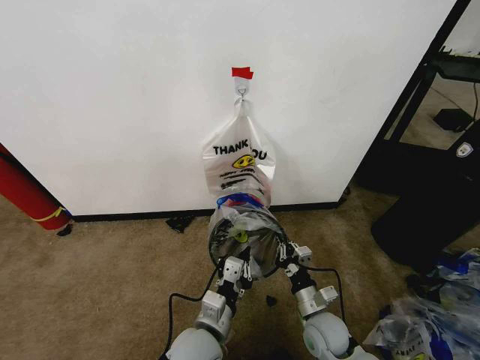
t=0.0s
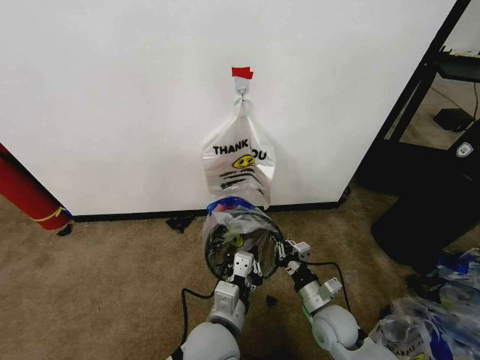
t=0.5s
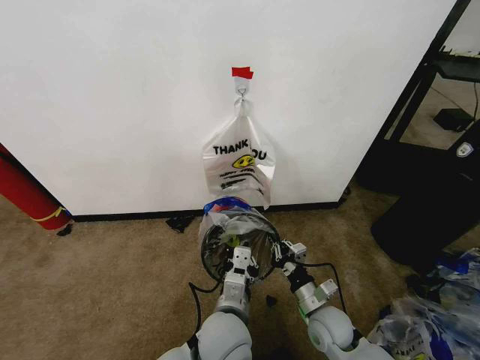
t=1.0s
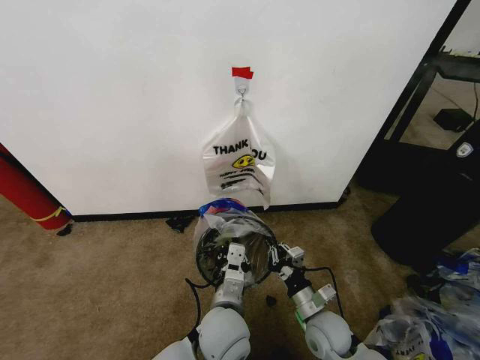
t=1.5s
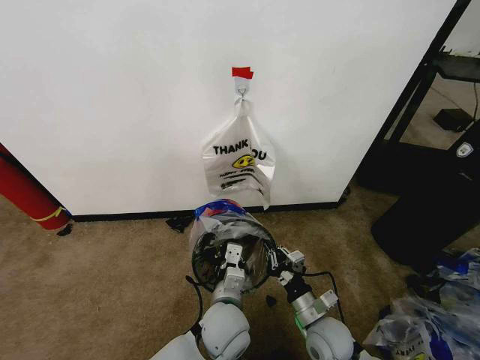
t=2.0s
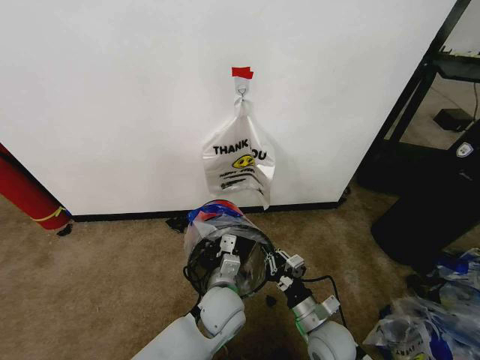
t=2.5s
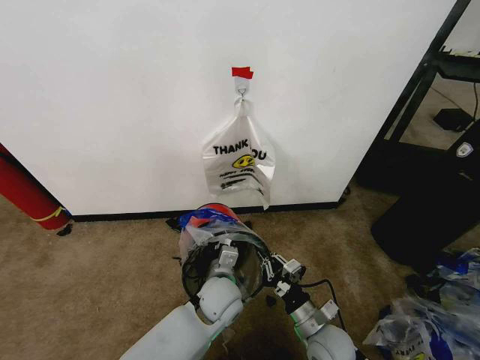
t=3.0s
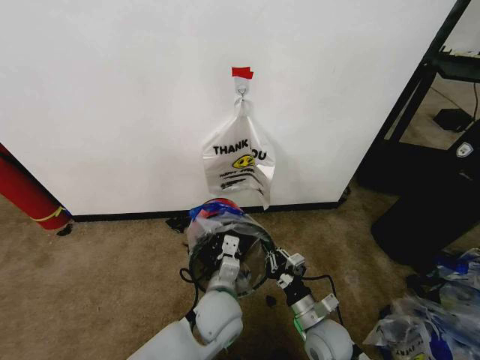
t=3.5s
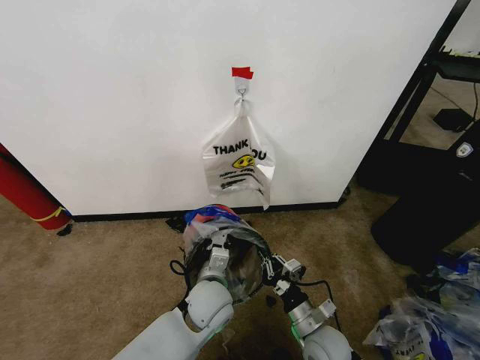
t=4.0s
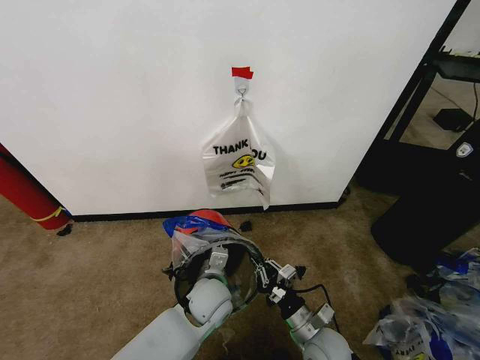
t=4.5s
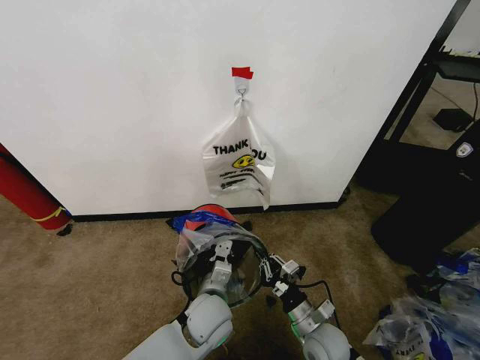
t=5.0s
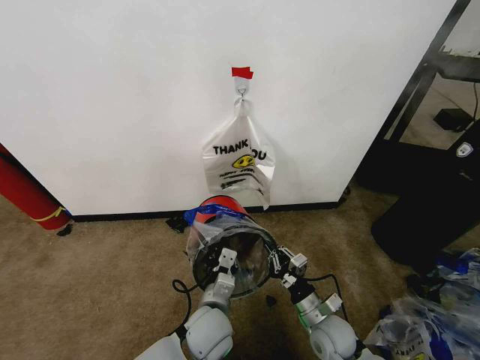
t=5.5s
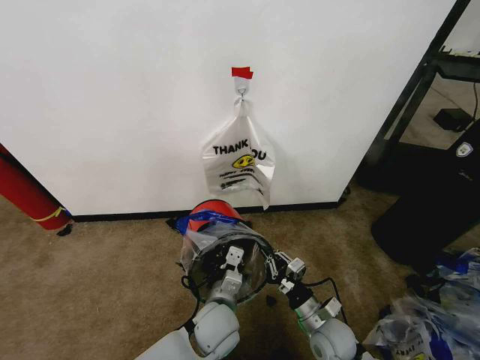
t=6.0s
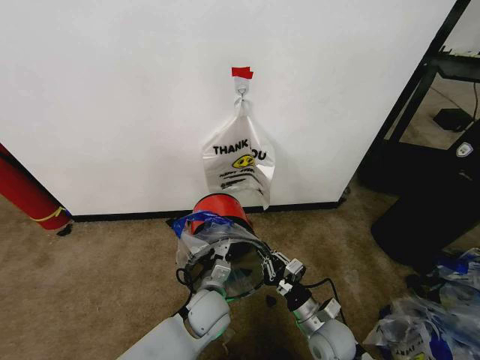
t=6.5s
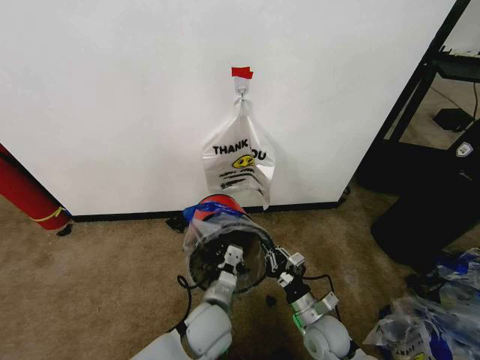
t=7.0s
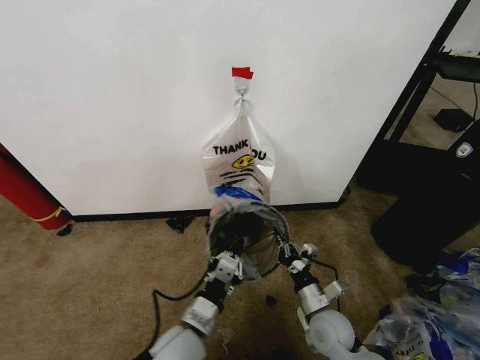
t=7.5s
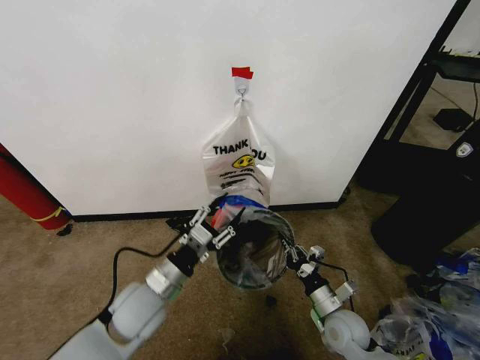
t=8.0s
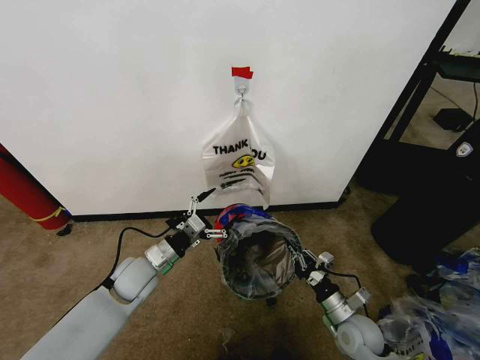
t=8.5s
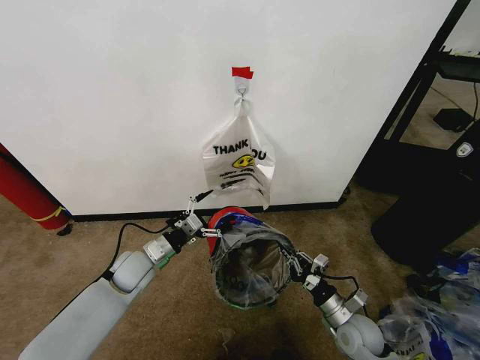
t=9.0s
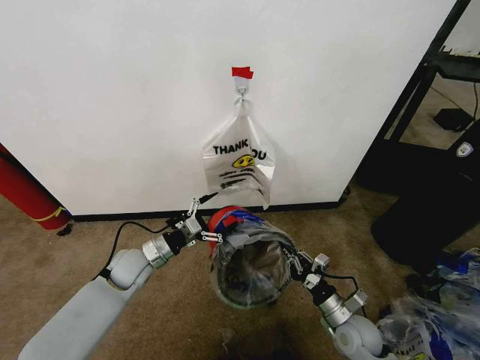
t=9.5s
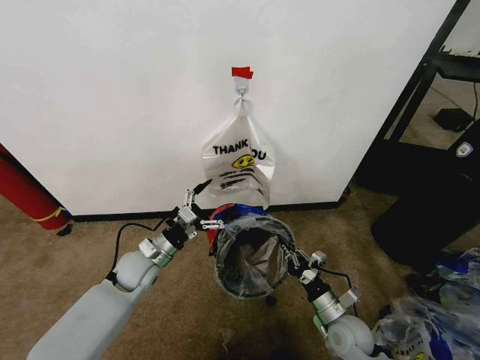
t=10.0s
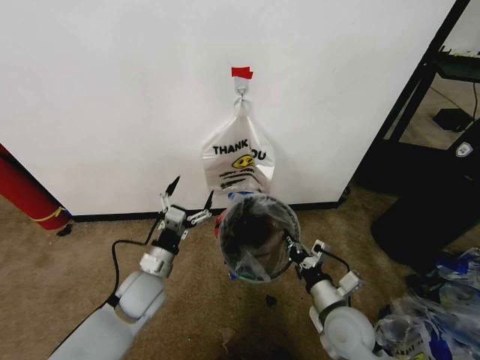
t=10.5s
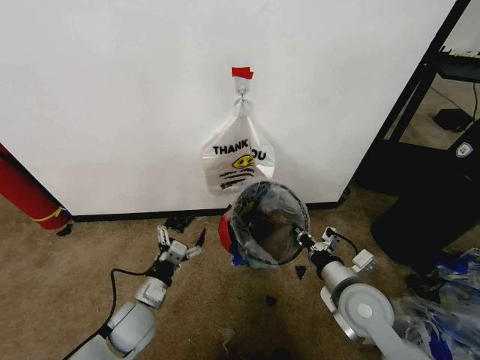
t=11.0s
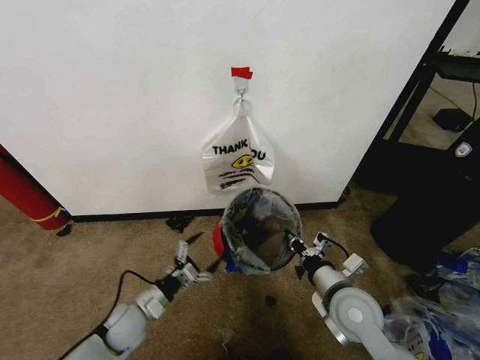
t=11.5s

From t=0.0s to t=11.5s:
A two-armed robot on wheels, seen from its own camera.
Task of the whole recording: Pick up the garbage bag from the wall and place it over the trash bin.
From t=0.0s to t=2.0s: The left gripper heads to the right, covering roughly 5 cm.
From t=2.0s to t=4.0s: The left gripper ends up roughly 5 cm from where it was.
From t=4.0s to t=6.0s: The left gripper ends up some 5 cm from where it was.
From t=6.0s to t=7.5s: The left gripper is displaced backward by some 5 cm.
From t=7.5s to t=9.5s: The left gripper travels forward and to the left by roughly 25 cm, and opens up. Meanwhile the right gripper travels to the right by roughly 5 cm.
From t=9.5s to t=11.5s: The right gripper heads upward, covering approximately 15 cm; the left gripper is displaced backward and downward by about 15 cm.

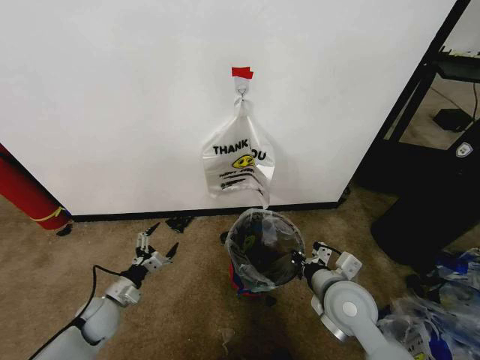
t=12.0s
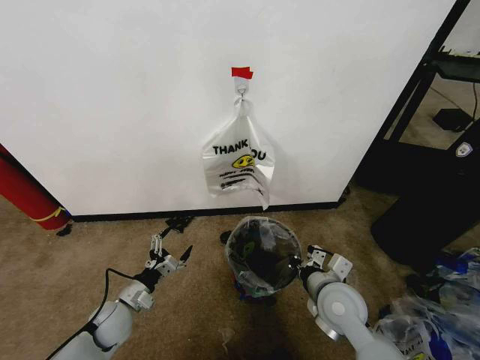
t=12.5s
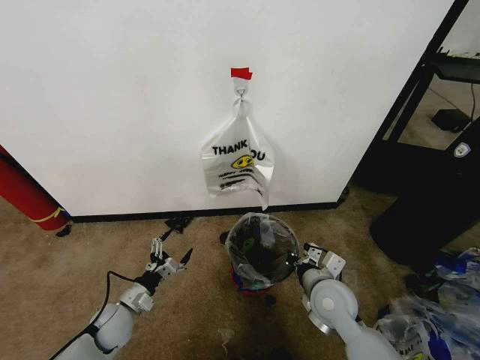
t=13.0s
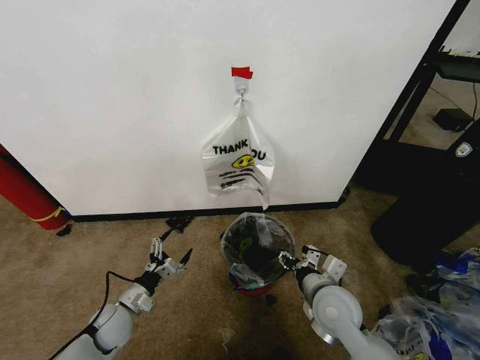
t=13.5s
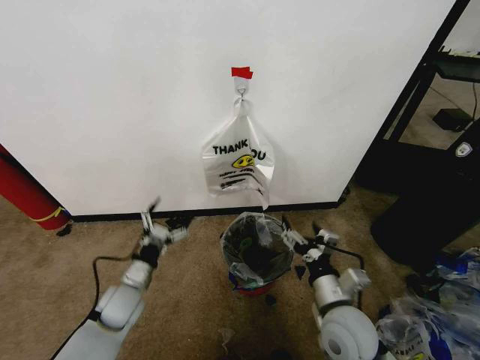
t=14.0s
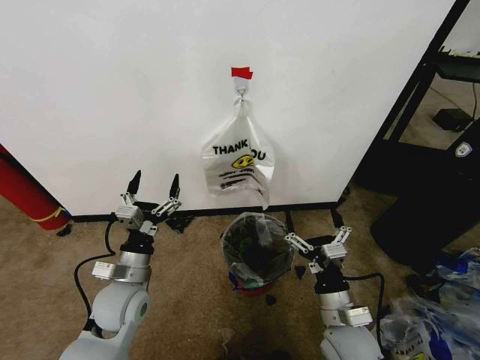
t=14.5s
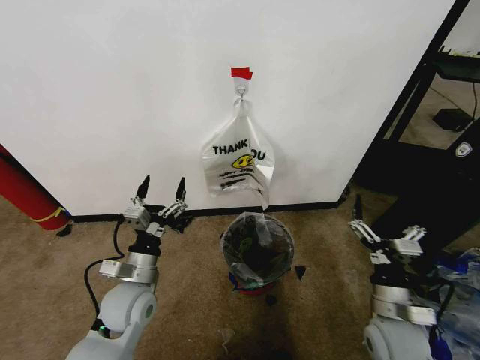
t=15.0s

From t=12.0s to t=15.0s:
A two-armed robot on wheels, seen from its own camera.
Task of the whole recording: Pick up the garbage bag from the wall and place it over the trash bin.
From t=12.0s to t=13.5s: The right gripper opens.
From t=13.5s to t=15.0s: The right gripper goes roughly 10 cm to the right and backward, and opens up, while the left gripper shifts roughly 15 cm upward and to the right.

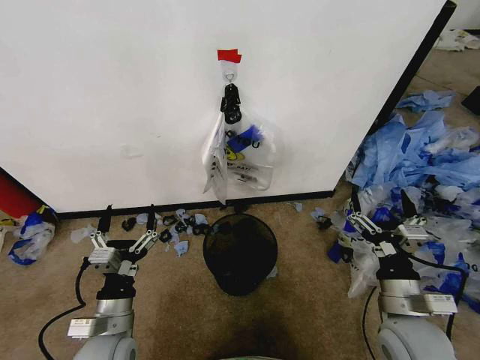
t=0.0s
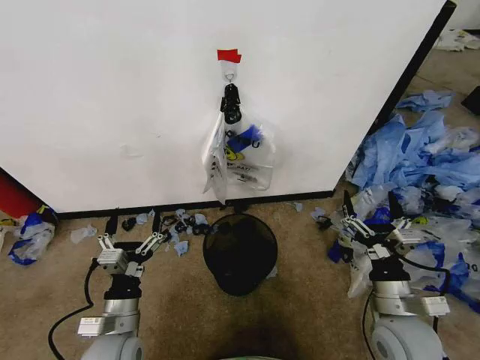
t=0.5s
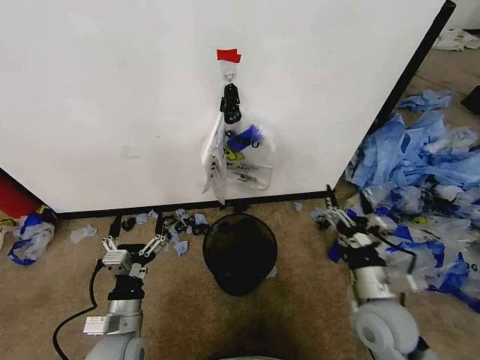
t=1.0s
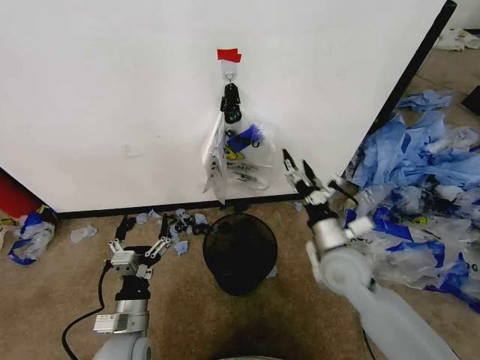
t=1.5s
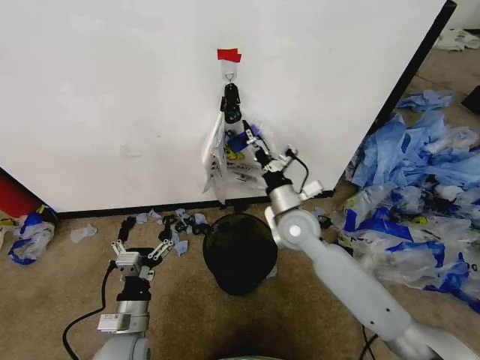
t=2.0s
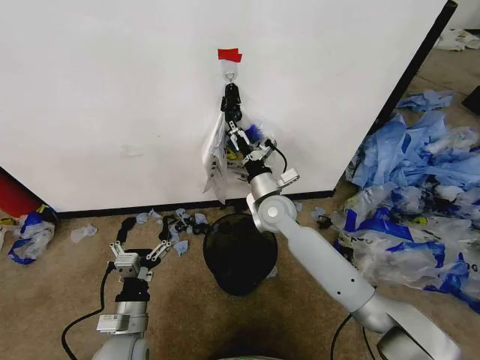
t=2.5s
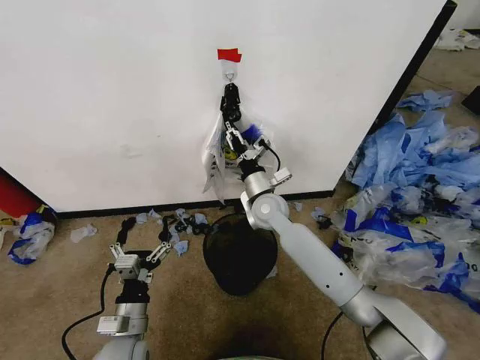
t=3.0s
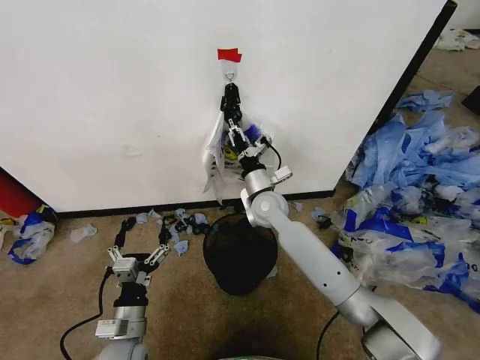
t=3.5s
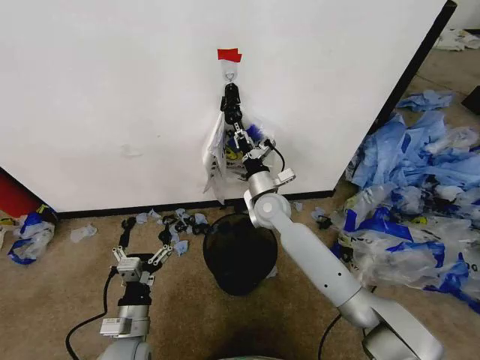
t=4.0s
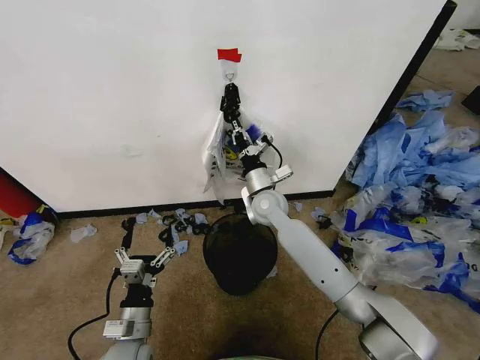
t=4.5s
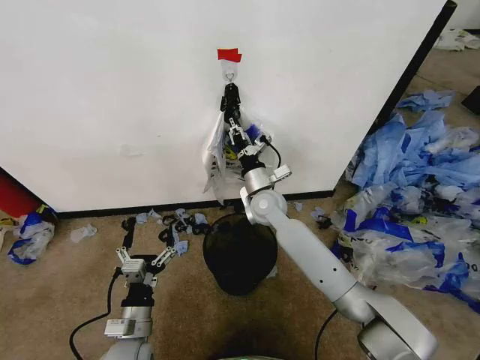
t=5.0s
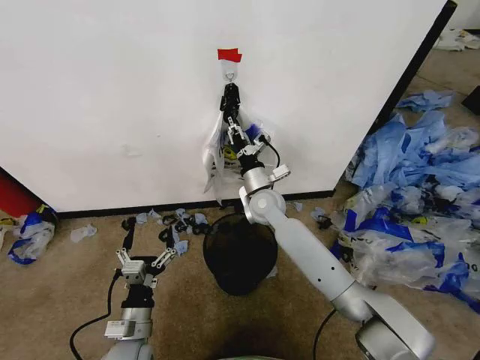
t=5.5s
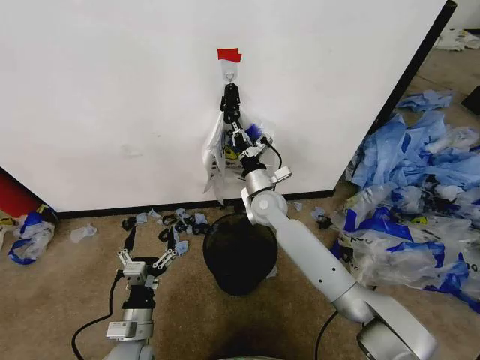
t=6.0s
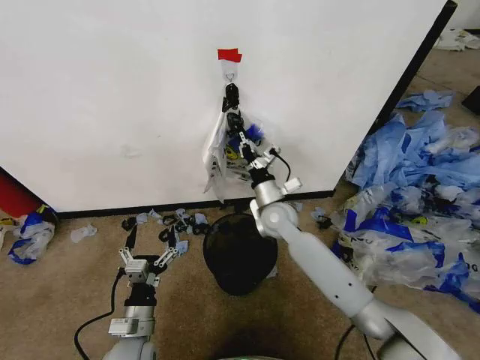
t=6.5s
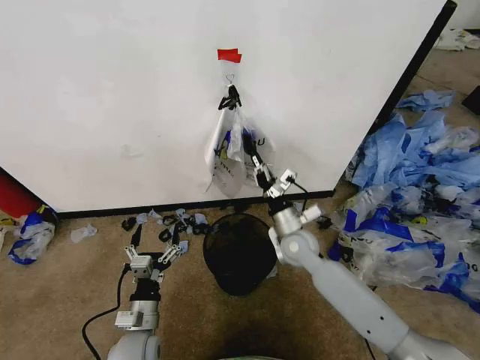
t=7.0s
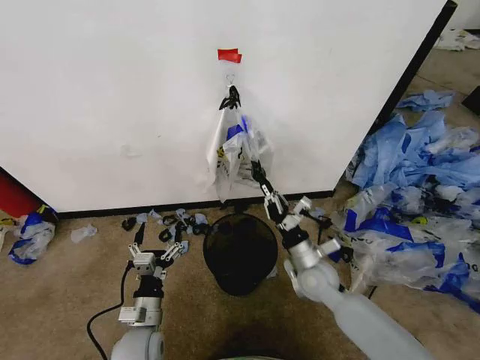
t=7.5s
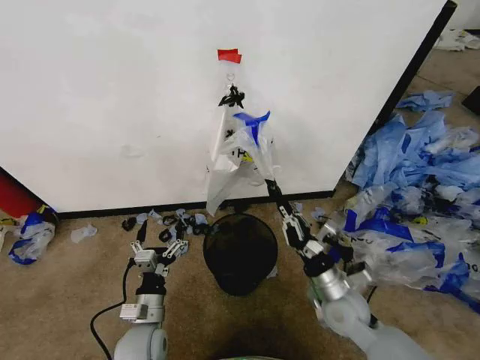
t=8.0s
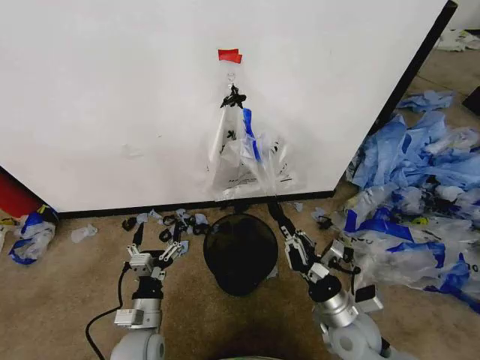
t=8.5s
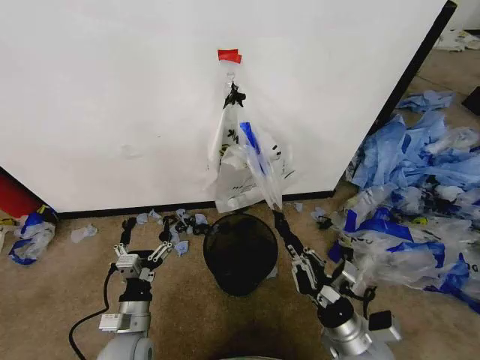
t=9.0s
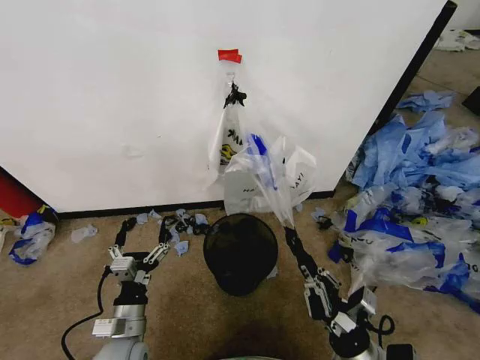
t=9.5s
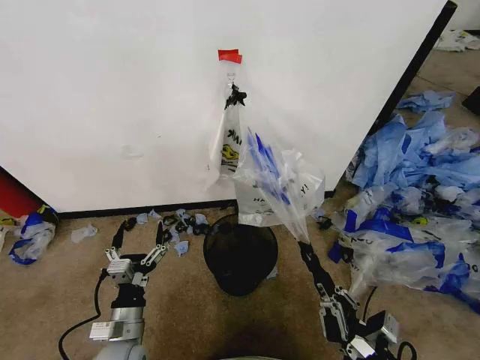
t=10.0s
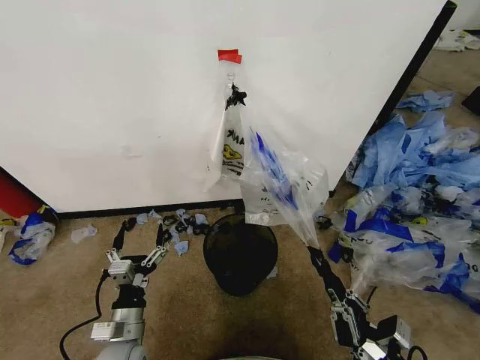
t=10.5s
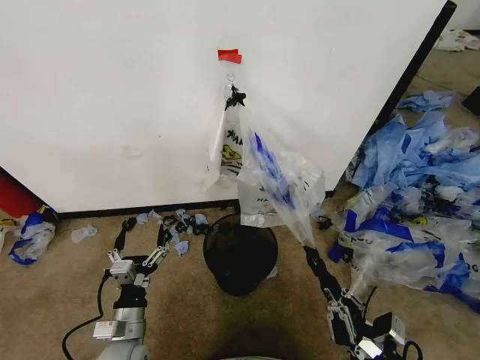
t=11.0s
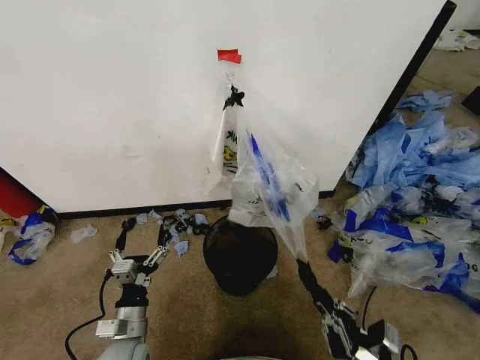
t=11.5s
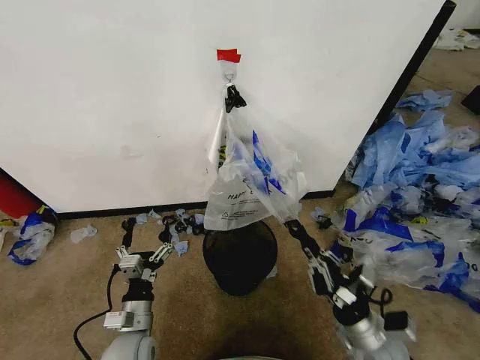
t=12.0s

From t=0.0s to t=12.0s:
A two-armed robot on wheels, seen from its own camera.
Task of the whole recording: Pick up the garbage bag from the wall and place it over the trash bin.
From t=2.0s to t=4.0s: The right gripper goes roughly 5 cm forward, and closes.
From t=4.0s to t=6.0s: The grippers move only a little.
From t=6.0s to t=8.0s: The right gripper heads backward and to the right, covering some 25 cm.
From t=8.0s to t=10.0s: The right gripper is displaced backward by some 15 cm, while the left gripper shifts by approximately 5 cm.
From t=10.0s to t=12.0s: The right gripper moves forward, approximately 10 cm.
